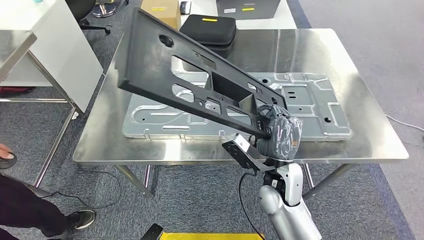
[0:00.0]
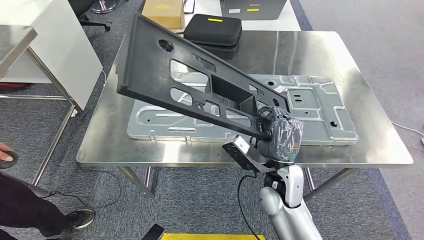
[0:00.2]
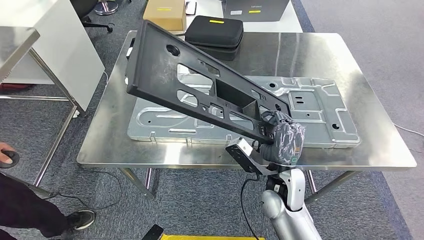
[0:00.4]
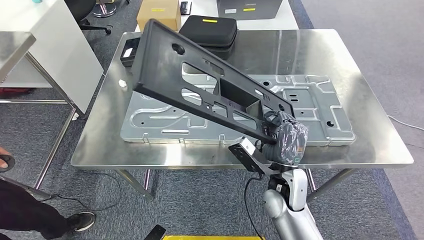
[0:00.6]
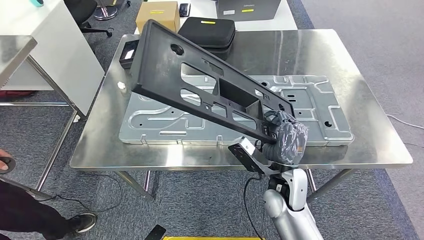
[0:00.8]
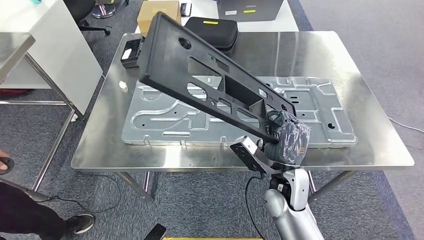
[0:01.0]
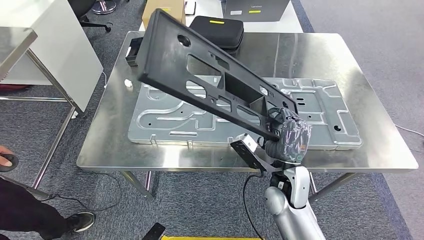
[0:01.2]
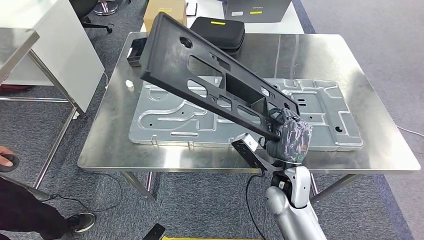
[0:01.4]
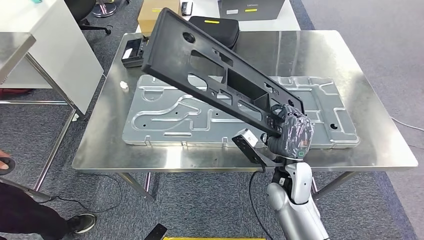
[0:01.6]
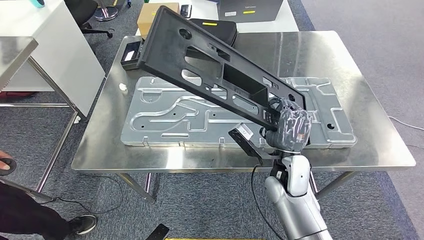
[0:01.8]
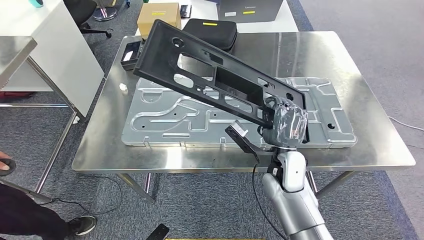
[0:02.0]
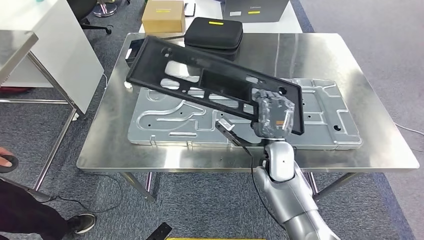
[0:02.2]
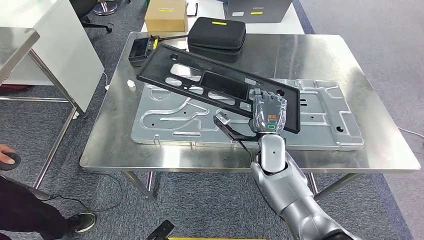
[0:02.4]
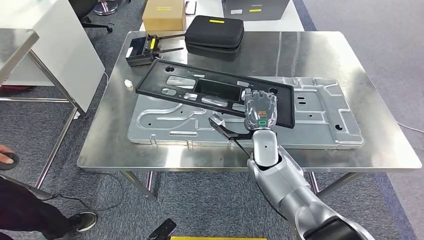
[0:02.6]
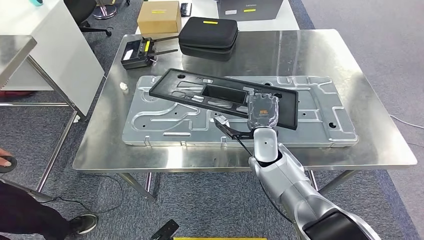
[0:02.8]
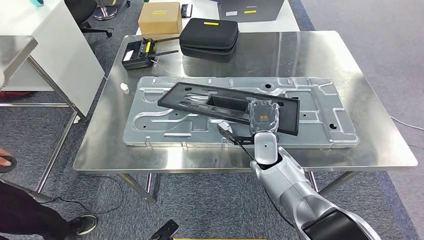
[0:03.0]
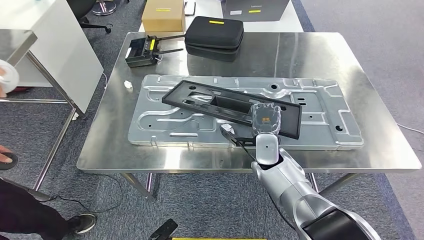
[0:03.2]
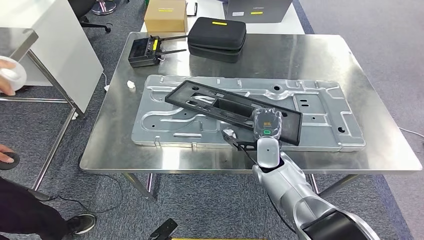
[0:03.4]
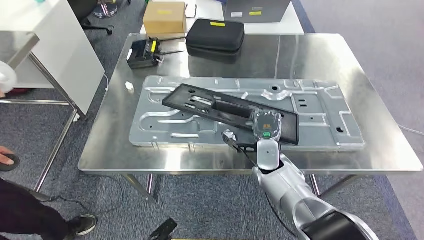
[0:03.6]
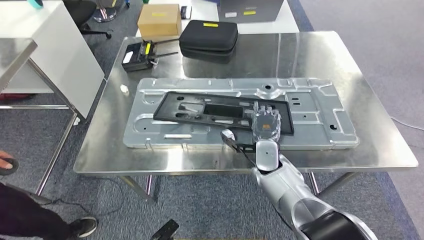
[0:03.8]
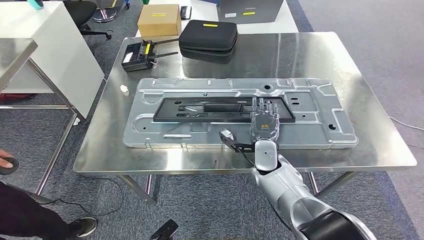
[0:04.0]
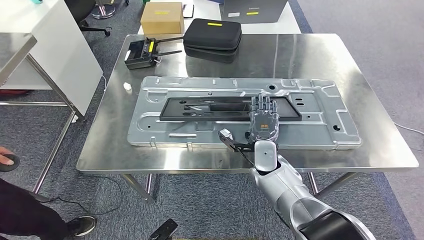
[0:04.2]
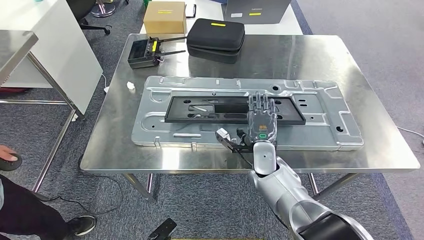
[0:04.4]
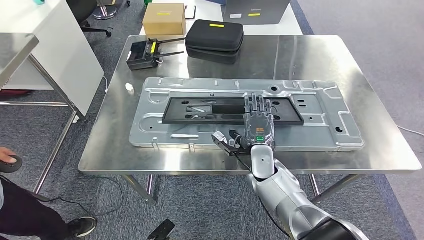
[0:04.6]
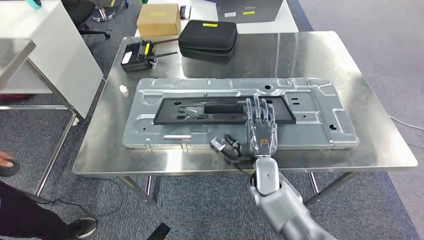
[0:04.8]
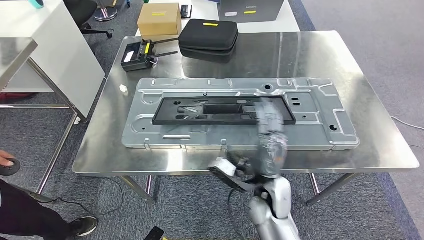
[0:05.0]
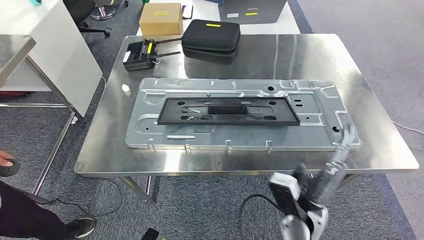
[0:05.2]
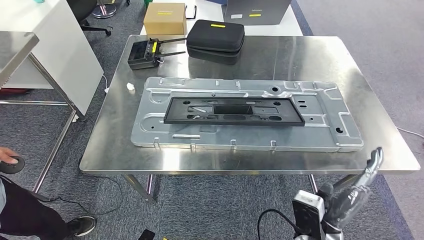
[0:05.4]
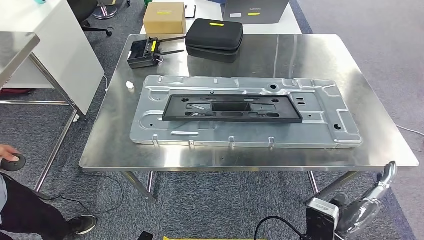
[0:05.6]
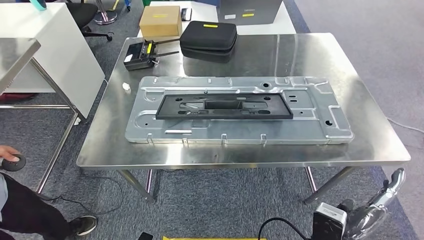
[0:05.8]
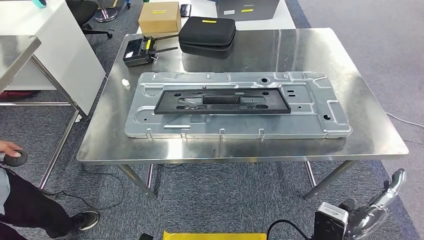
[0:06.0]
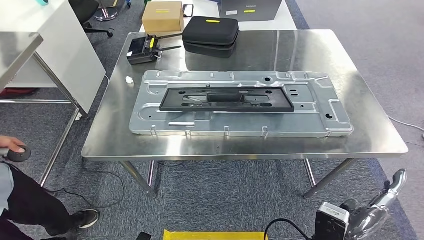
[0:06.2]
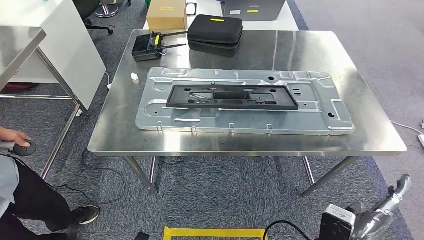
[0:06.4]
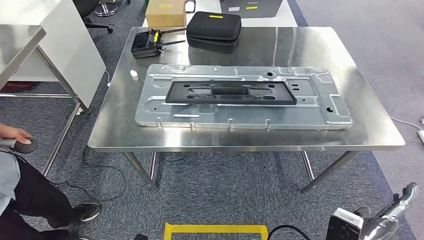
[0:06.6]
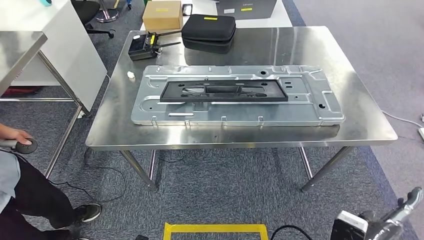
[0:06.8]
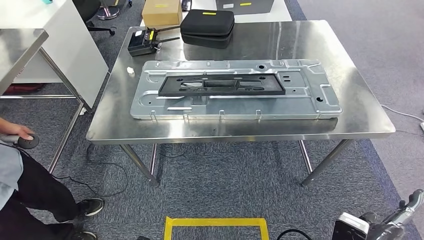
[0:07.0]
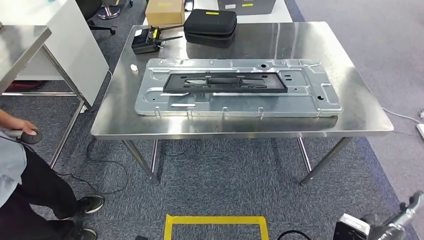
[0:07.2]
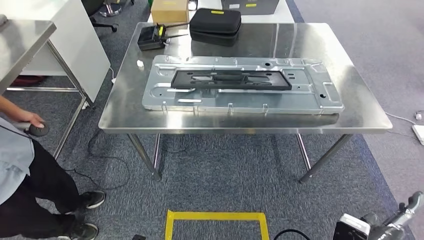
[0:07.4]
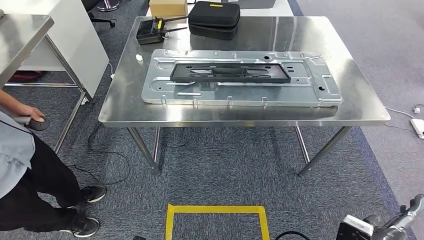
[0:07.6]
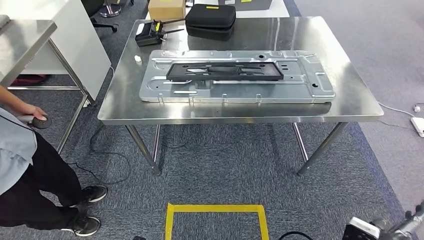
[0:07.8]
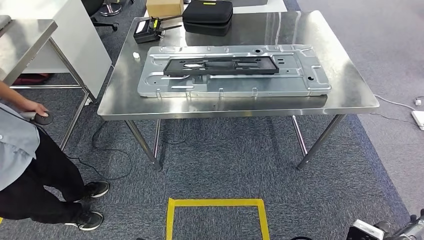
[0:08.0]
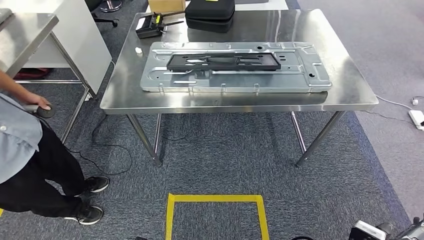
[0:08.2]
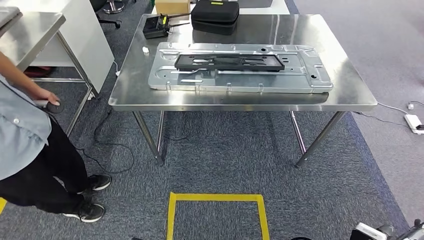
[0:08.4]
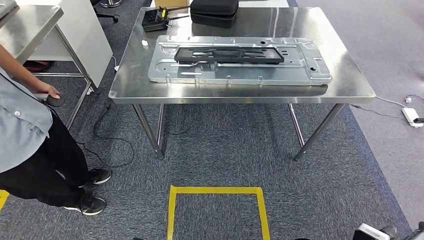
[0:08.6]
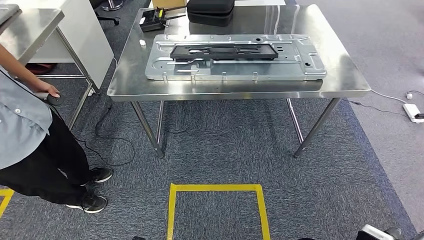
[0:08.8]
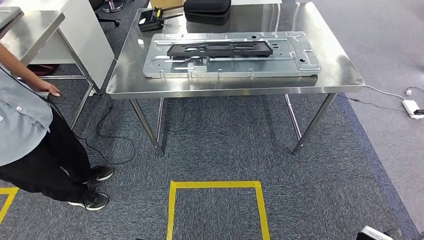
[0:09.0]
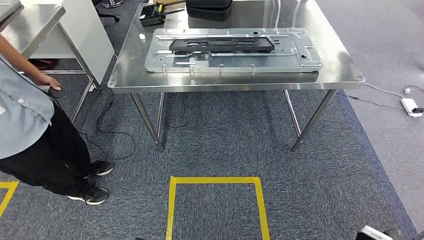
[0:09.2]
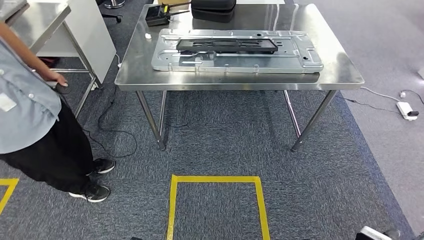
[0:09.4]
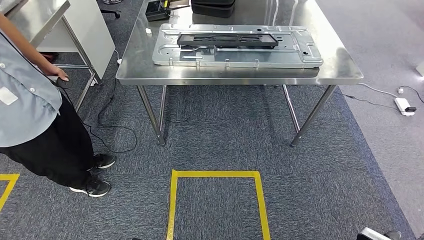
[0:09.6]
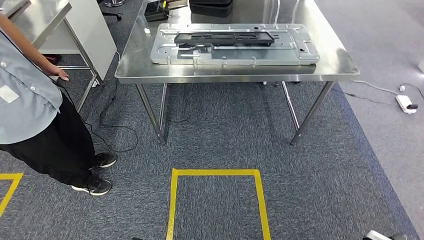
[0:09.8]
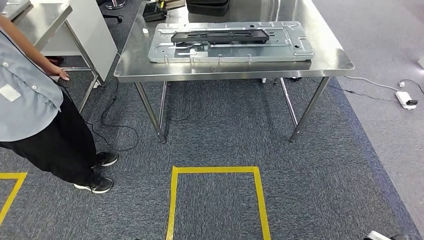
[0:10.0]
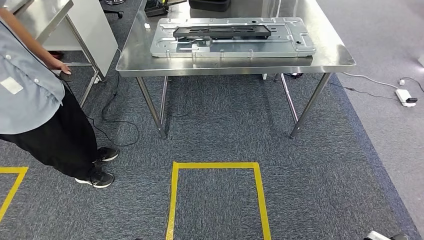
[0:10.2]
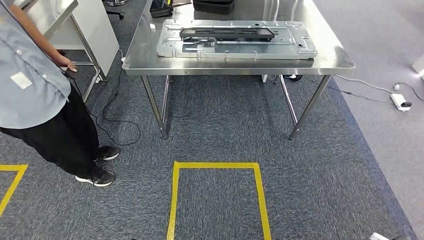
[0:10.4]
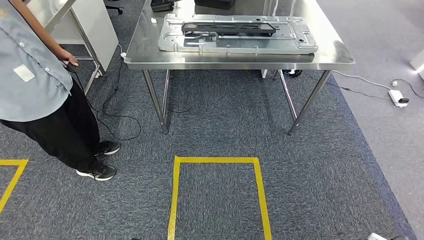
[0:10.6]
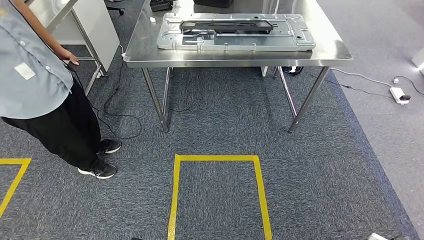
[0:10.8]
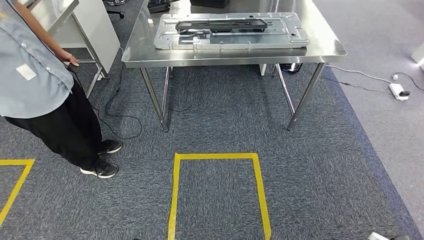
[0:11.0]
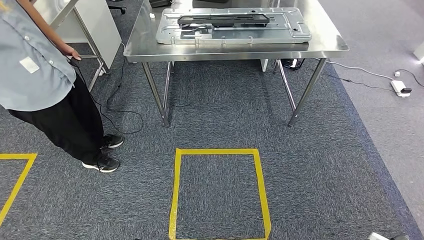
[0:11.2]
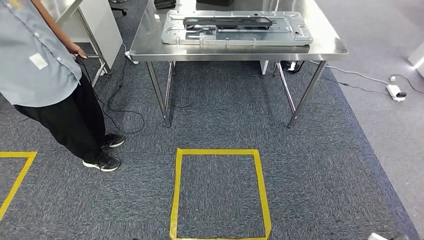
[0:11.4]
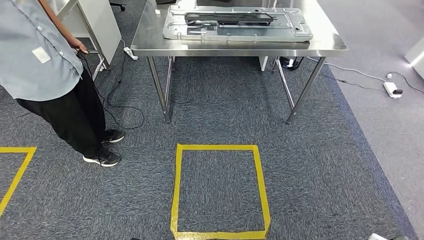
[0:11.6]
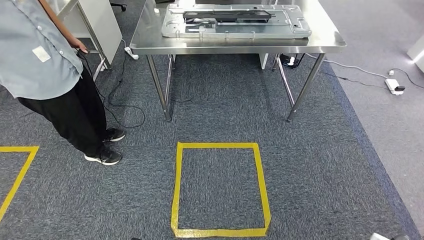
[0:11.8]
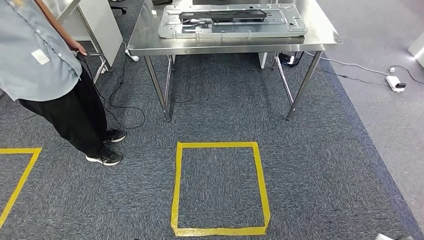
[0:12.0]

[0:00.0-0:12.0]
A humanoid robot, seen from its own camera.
Step, 0:01.0 to 0:05.8: Insert the large material into the corresponding slot on the workbench.

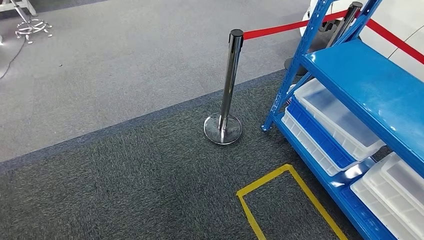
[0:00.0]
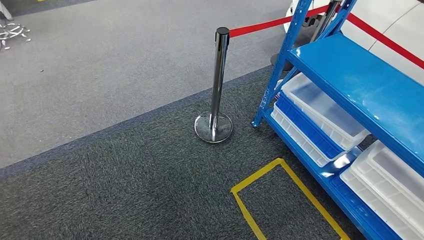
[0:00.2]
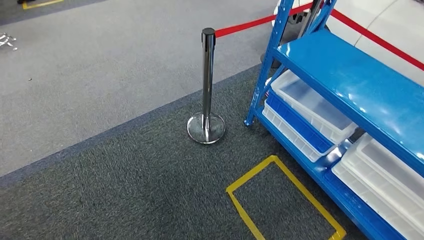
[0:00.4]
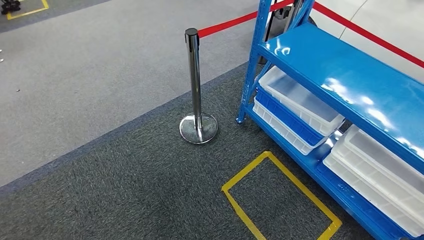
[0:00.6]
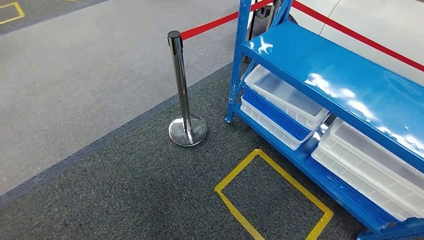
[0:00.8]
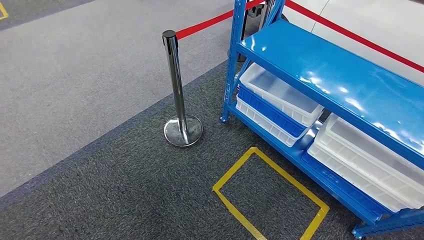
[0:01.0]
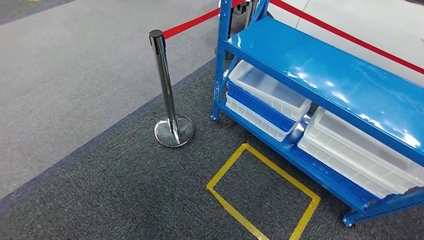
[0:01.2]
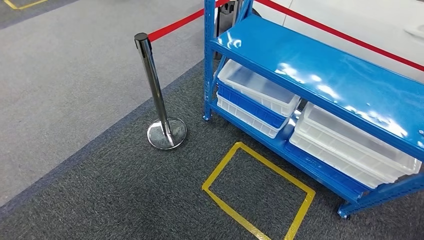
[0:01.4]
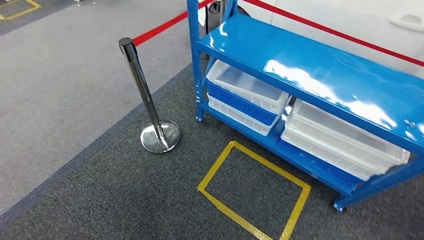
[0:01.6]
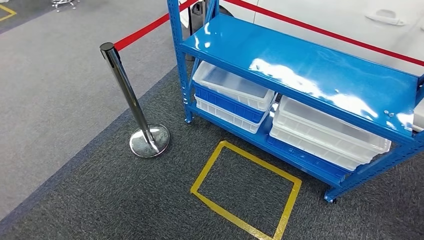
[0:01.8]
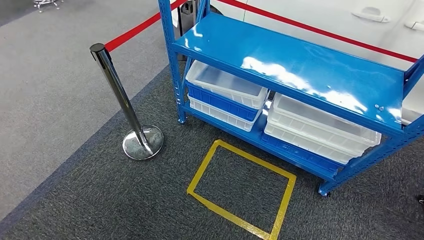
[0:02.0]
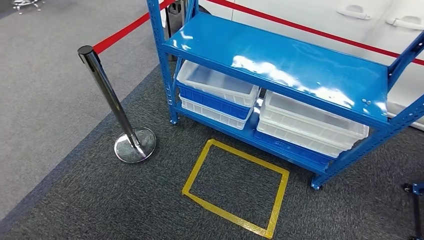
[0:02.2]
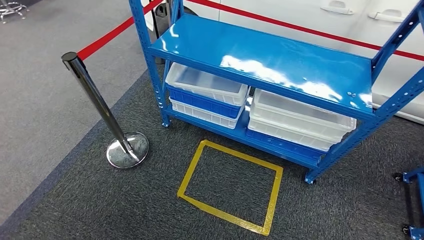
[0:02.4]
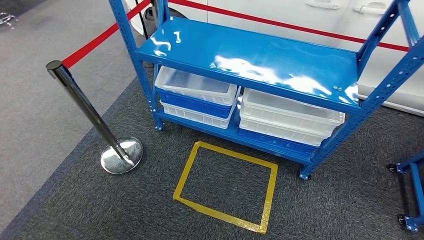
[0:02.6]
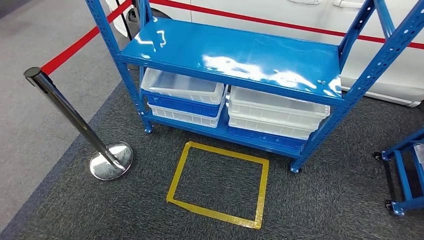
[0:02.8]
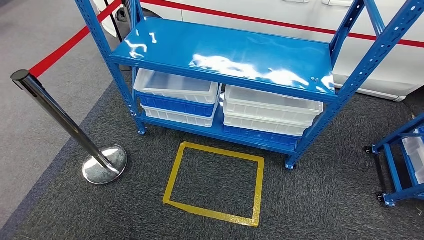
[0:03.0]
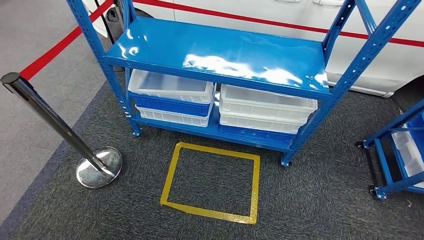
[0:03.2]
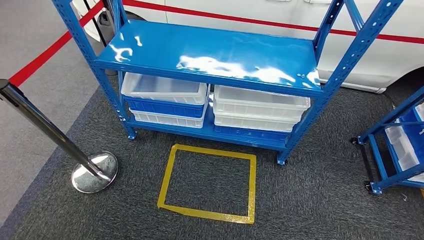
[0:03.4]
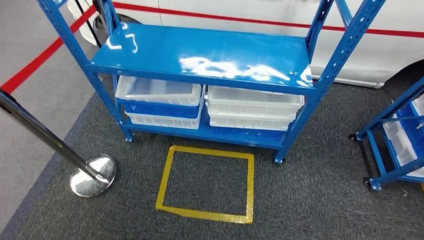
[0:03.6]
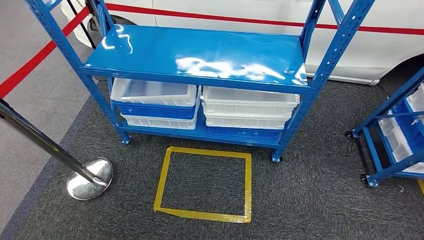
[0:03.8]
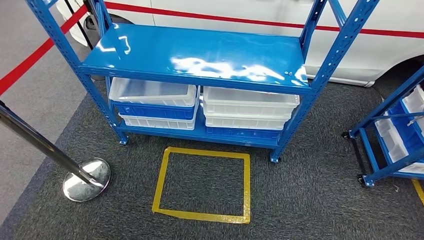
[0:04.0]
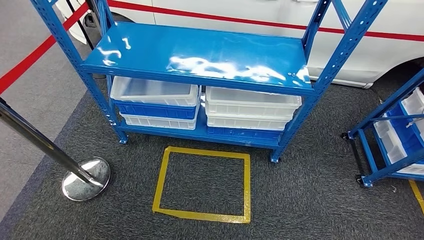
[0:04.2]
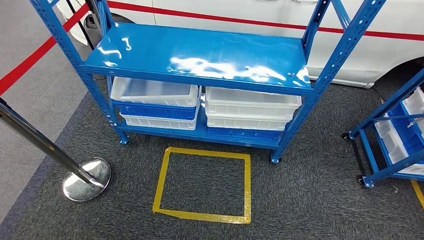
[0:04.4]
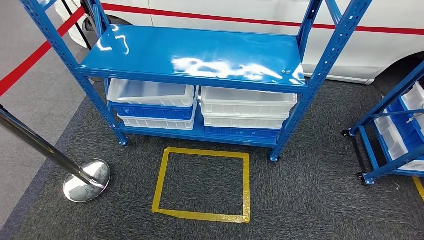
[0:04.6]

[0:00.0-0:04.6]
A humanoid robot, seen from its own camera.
Step, 0:00.0 to 0:04.6: Return to the initial position at the shelf.
